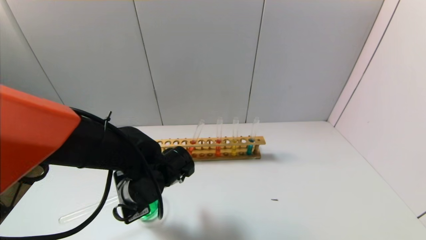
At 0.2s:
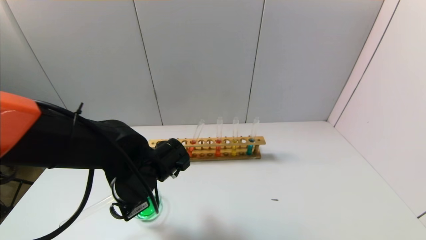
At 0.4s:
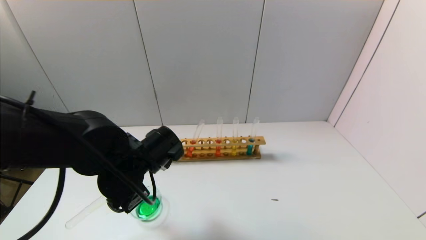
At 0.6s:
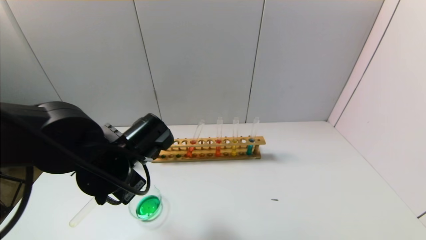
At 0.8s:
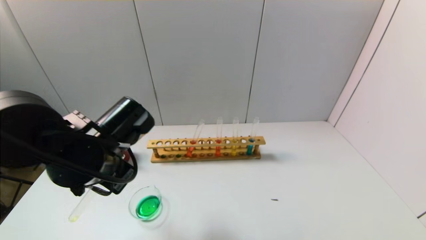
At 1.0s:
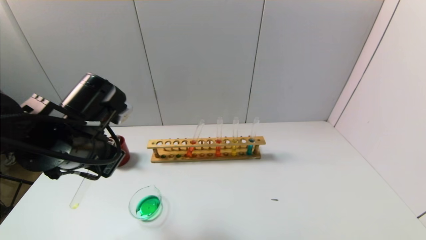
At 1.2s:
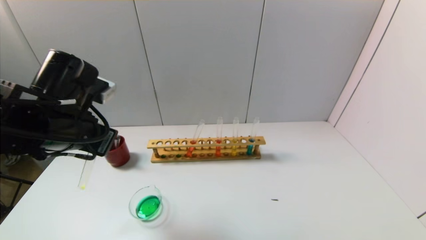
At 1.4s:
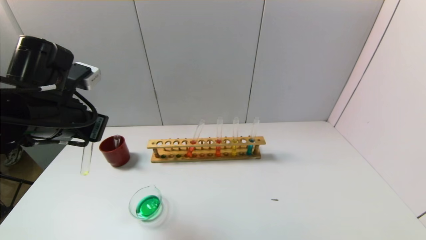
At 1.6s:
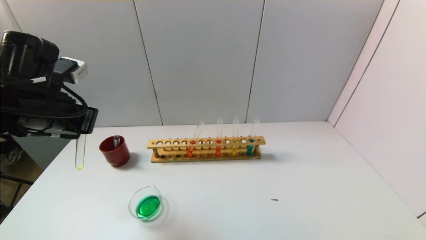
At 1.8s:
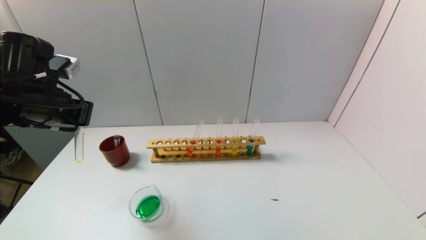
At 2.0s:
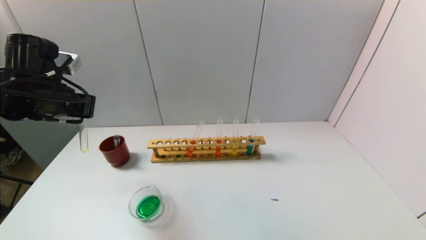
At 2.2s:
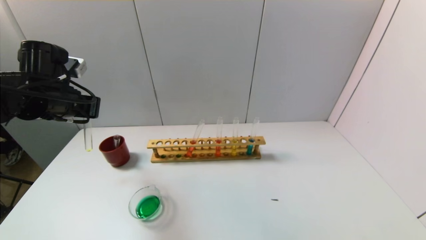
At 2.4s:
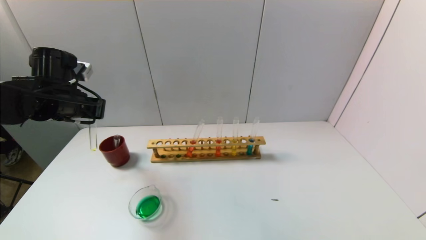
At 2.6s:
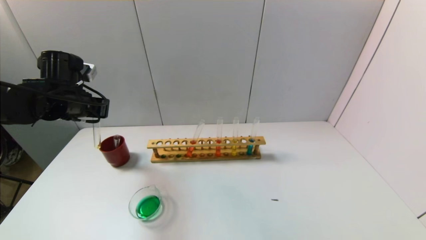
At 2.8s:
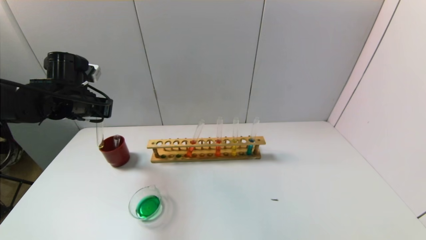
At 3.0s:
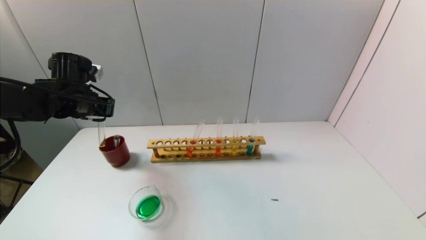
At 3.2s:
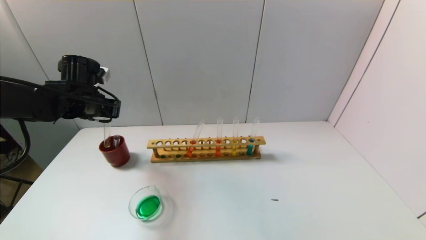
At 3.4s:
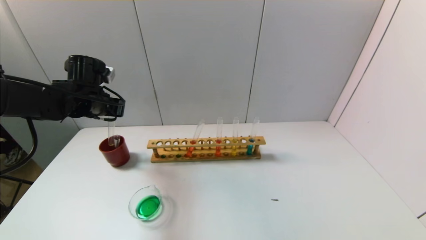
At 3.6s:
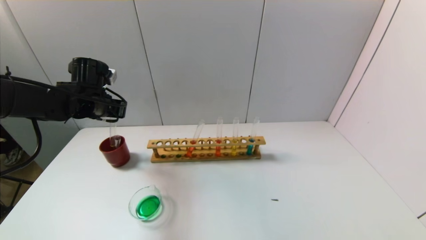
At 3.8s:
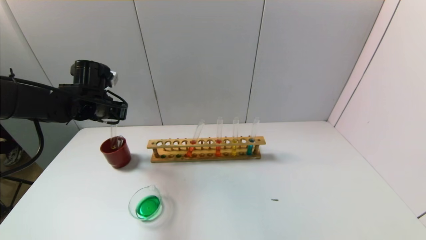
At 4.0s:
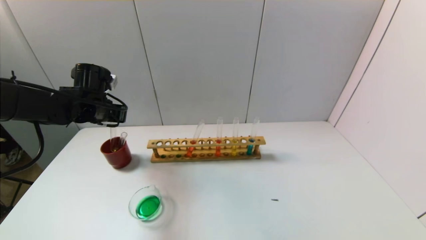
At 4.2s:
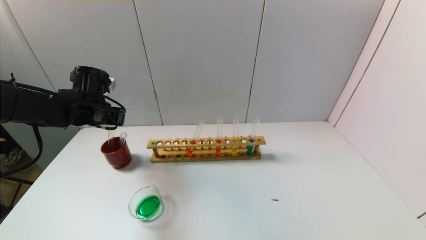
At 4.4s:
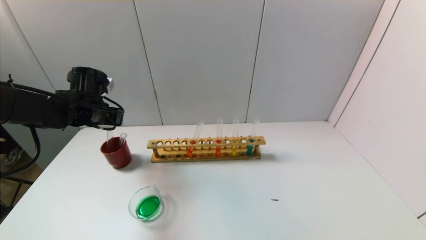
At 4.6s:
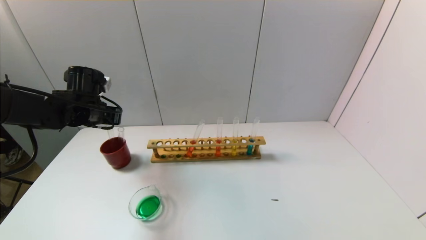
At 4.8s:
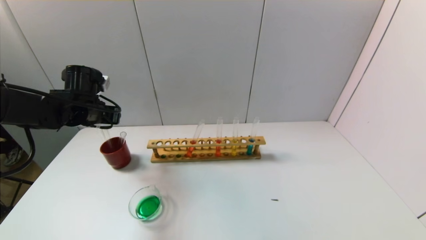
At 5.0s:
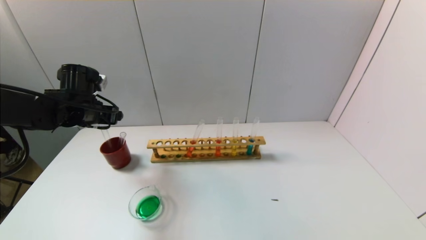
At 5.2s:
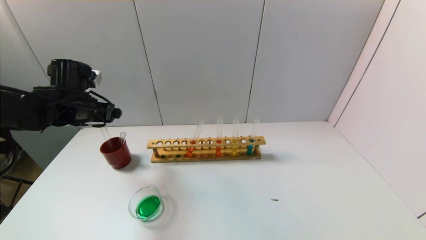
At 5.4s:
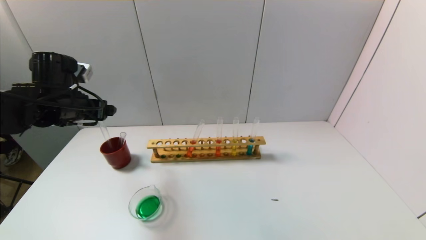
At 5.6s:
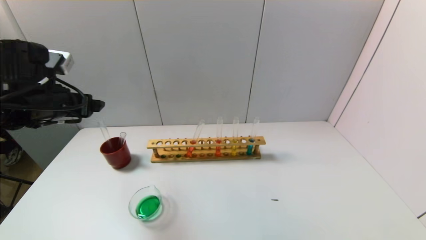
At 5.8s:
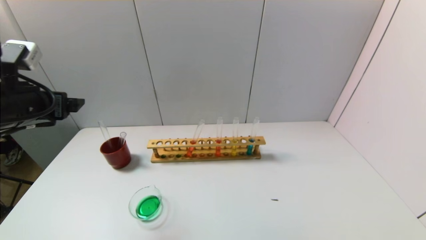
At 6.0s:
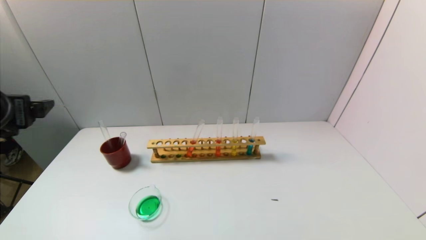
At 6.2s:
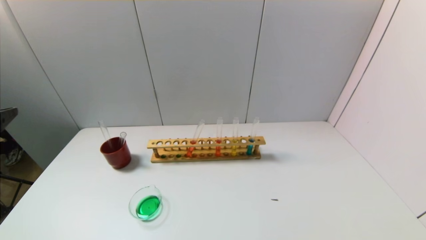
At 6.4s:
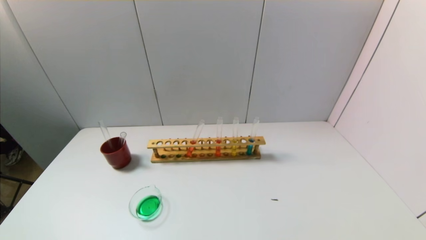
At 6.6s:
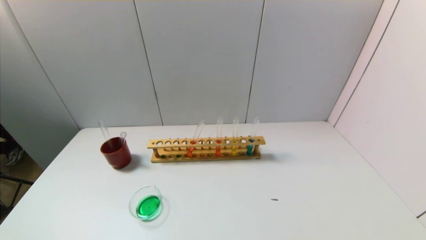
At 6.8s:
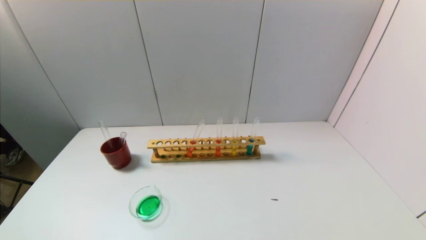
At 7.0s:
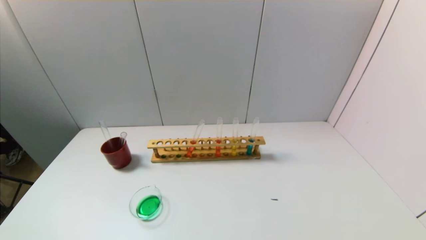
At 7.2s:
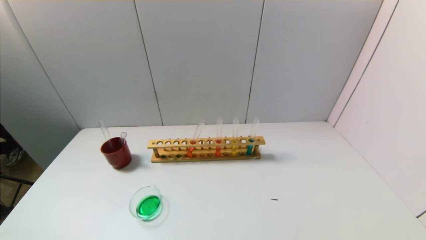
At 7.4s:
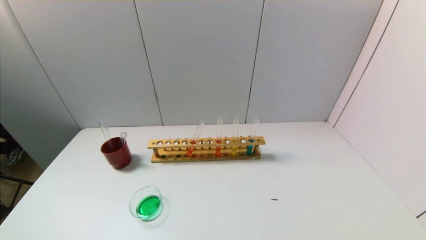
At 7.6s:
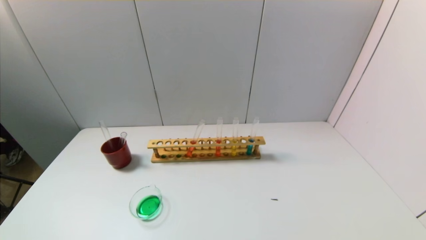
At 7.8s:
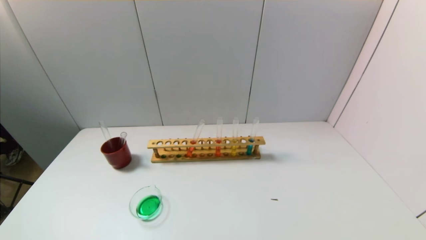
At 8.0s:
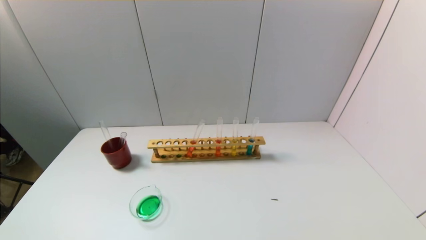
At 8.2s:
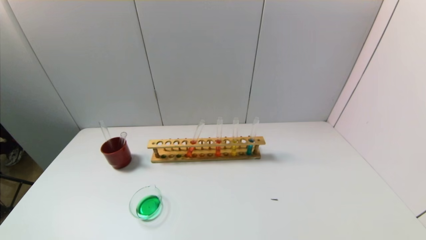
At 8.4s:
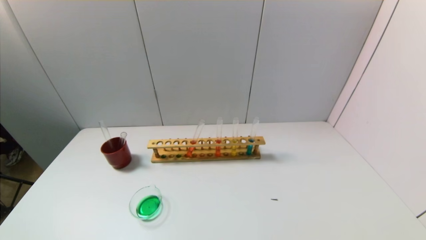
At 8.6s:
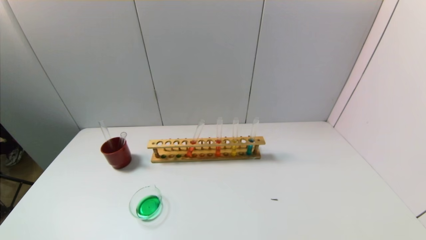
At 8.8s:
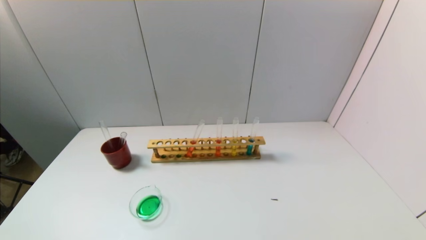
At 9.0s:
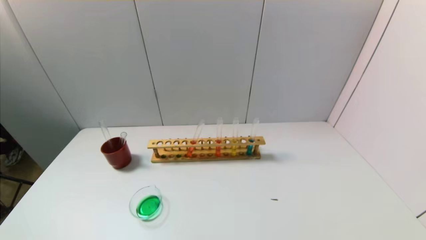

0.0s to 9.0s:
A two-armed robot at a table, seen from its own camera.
Task of the whole recording: pick up the test tube with yellow pigment and the test tube with blue pigment by grippers and pour them into the beaker.
Step, 0.0s to 5.0s: Place the test tube into the brown cup with the left gripper.
0.0s to 1.6s: The left gripper goes about 20 cm upward and to the left.
1.6s to 3.0s: The left gripper shifts some 10 cm forward.
3.0s to 4.4s: The grippers stay close to where they were, moving slightly.
4.4s to 6.0s: The left gripper shifts approximately 20 cm backward and upward, and opens its fingers.
6.0s to 7.6s: The left gripper is displaced backward and downward by roughly 30 cm.
